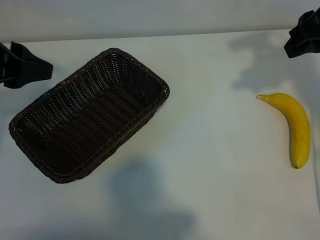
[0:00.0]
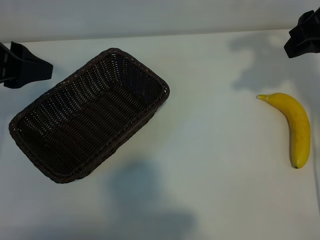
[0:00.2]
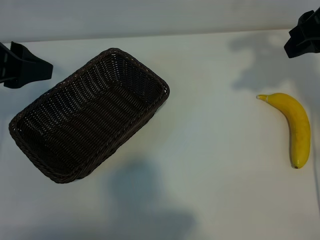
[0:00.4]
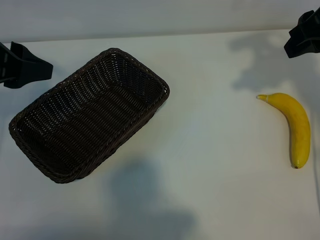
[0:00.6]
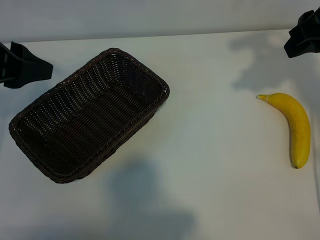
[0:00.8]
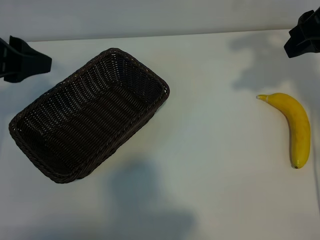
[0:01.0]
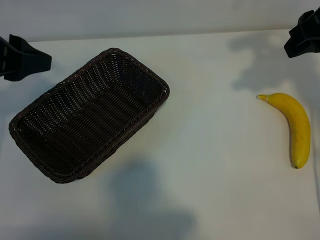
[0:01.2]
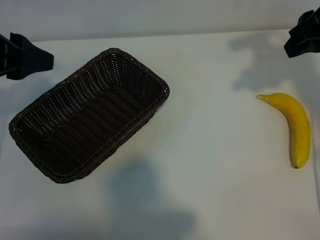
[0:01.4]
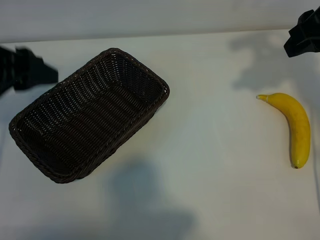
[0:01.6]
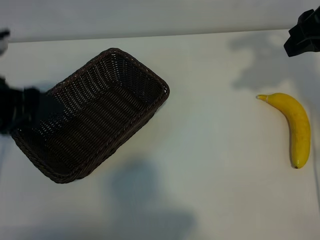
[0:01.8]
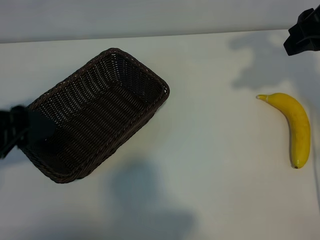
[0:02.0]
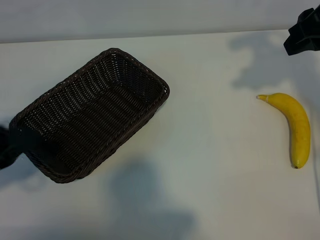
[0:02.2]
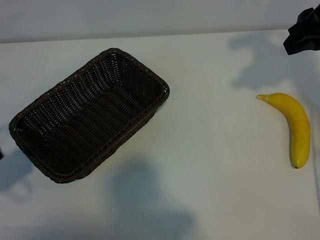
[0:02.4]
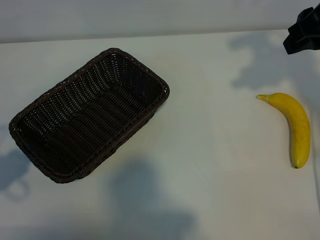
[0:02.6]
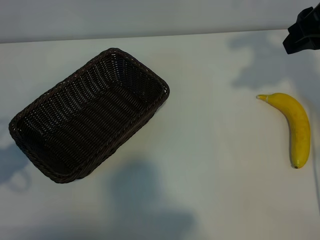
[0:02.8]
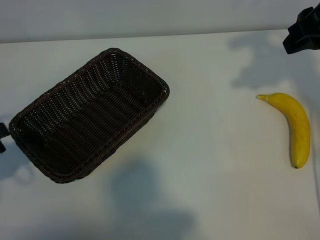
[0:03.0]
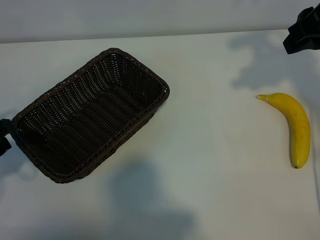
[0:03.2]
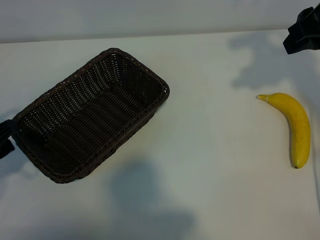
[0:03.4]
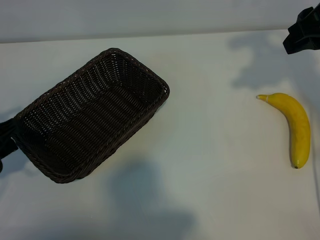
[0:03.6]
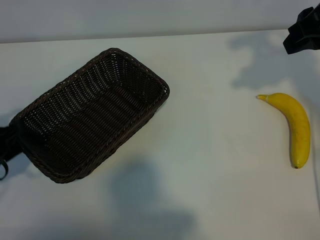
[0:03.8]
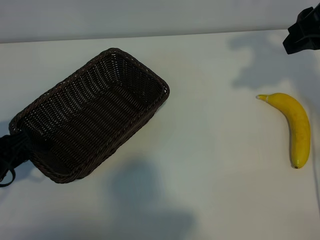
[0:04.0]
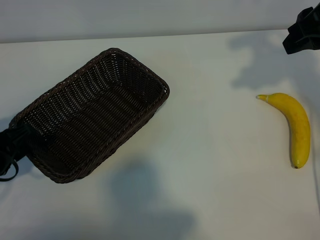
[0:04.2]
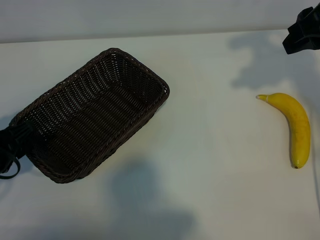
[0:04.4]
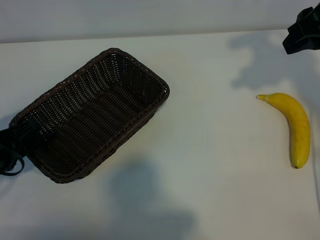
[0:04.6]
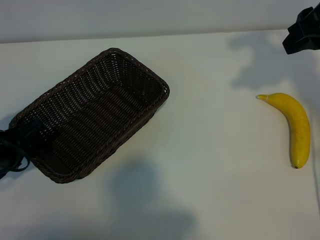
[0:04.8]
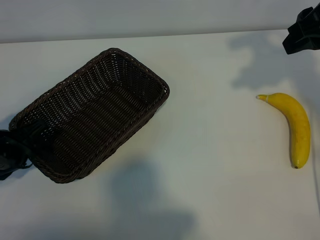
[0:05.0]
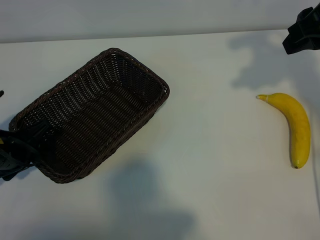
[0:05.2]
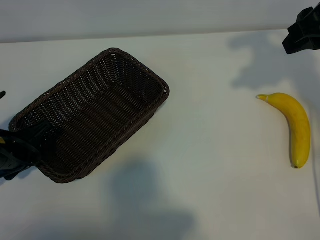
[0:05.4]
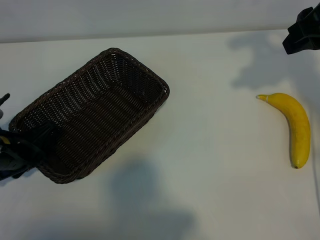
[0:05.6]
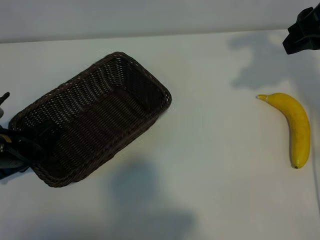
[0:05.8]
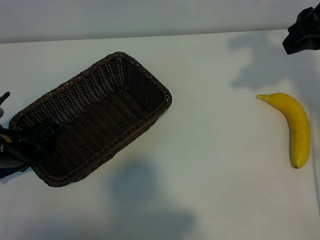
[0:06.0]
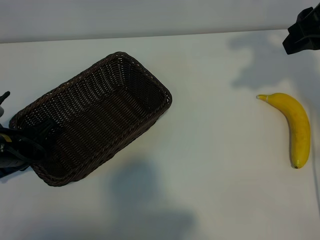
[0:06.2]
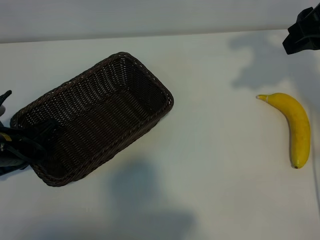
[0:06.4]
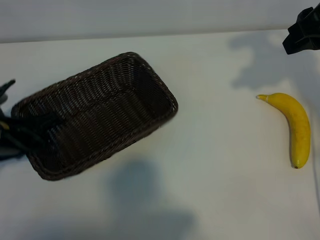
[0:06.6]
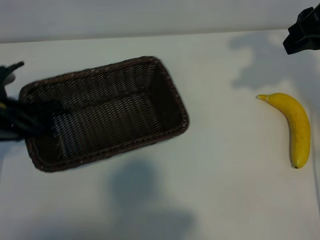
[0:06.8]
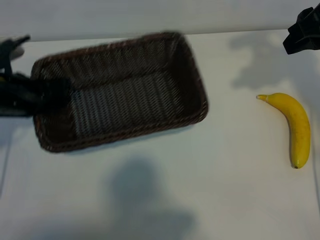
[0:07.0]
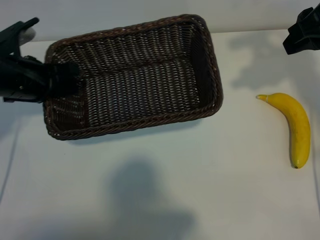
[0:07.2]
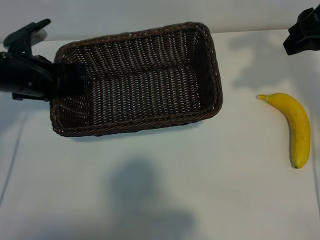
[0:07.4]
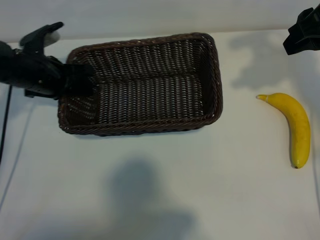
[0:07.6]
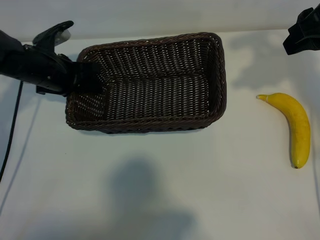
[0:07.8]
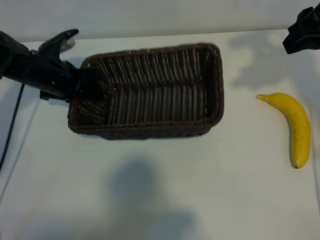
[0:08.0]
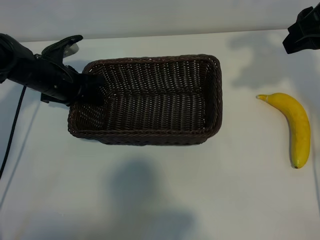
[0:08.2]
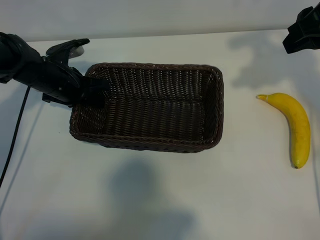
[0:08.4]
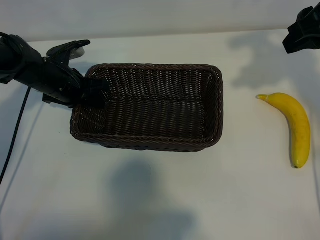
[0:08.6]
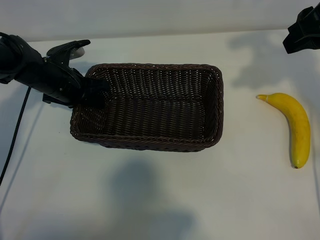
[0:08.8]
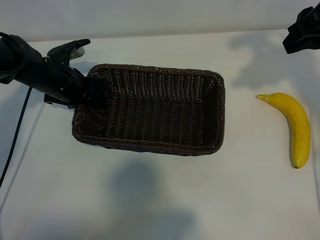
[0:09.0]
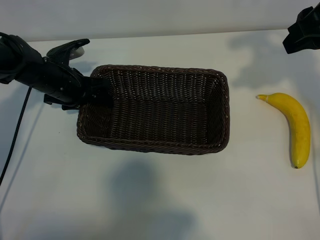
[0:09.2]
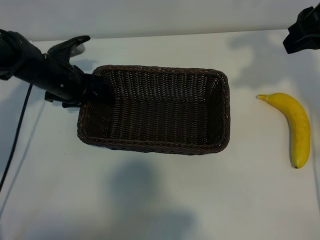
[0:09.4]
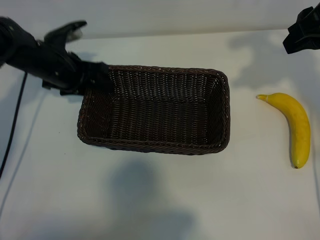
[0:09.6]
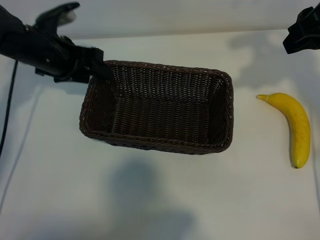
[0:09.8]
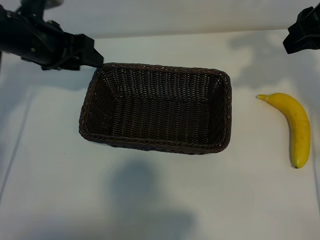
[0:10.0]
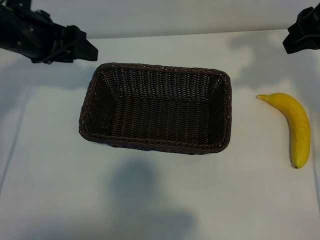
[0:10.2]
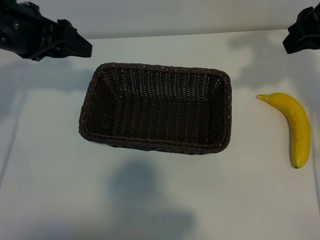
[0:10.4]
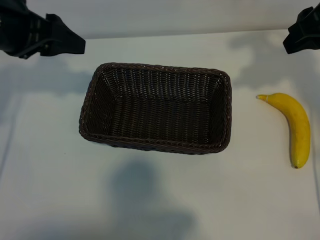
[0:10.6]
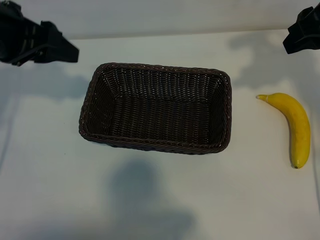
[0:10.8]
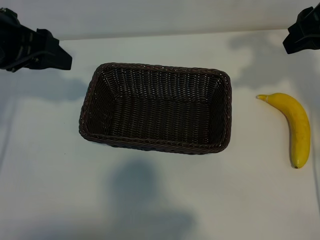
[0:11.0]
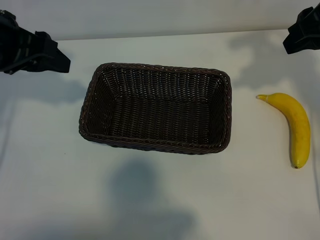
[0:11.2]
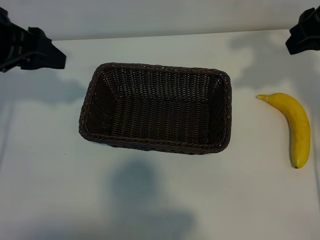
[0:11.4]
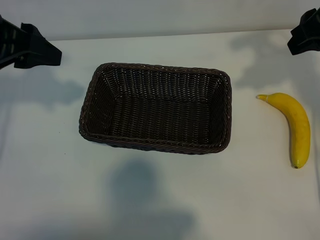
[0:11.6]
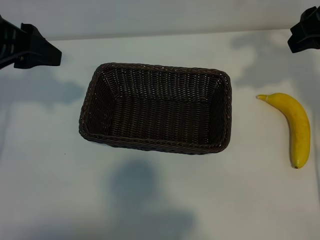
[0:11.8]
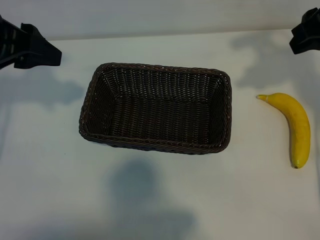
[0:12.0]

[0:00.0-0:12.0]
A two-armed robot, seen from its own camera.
Task of the whole recording: pick up the banana and put it into the basket.
Step, 0:00.8 to 0:05.6: Grasp the basket with the left gripper.
Step, 0:06.0 to 0:09.8: Place the basket in the center of the table with the left gripper.

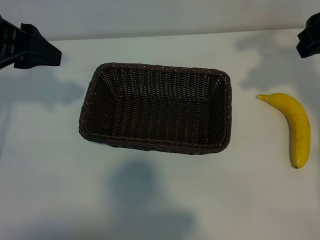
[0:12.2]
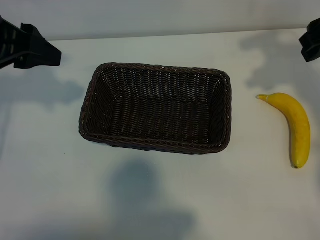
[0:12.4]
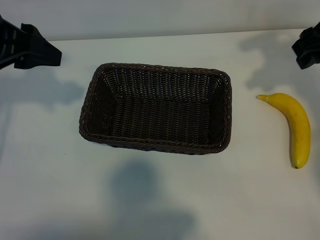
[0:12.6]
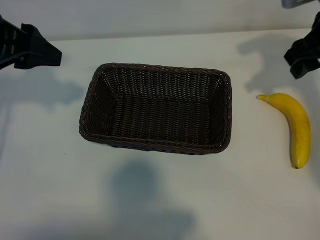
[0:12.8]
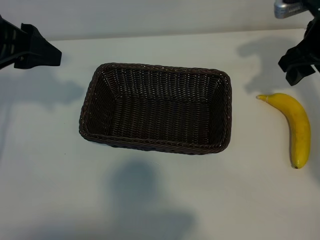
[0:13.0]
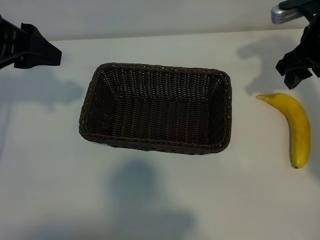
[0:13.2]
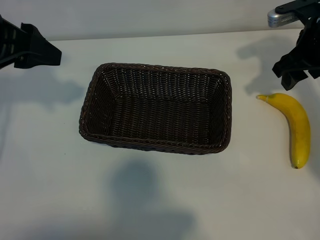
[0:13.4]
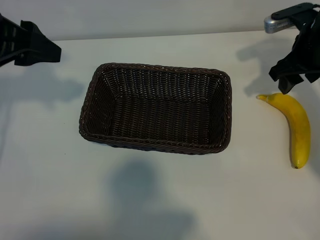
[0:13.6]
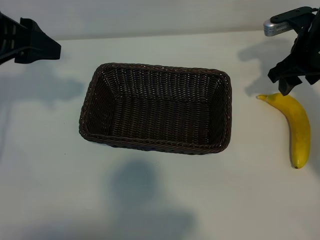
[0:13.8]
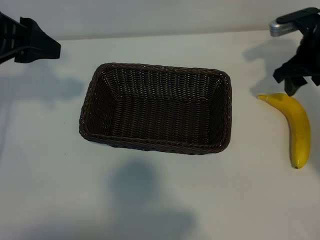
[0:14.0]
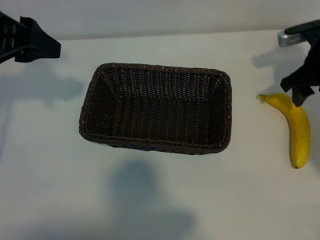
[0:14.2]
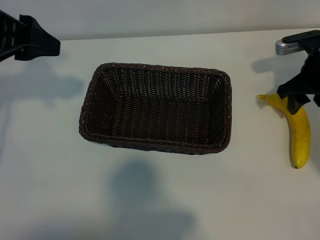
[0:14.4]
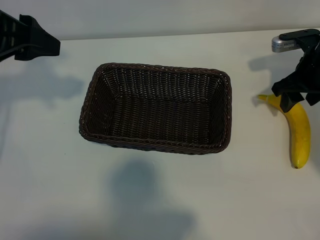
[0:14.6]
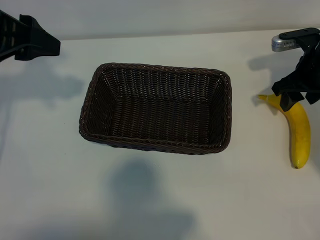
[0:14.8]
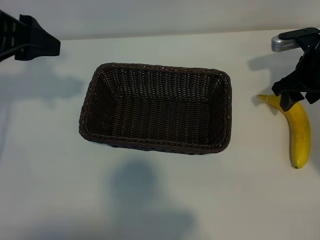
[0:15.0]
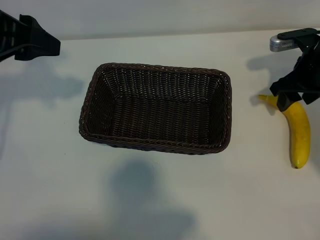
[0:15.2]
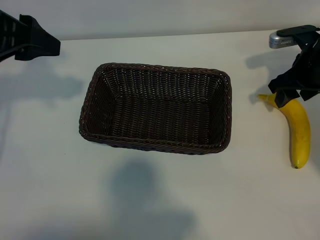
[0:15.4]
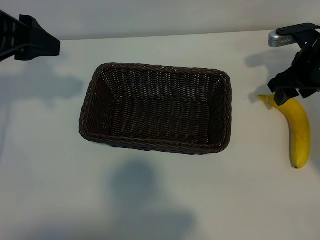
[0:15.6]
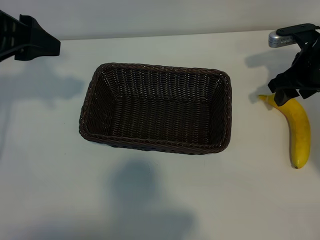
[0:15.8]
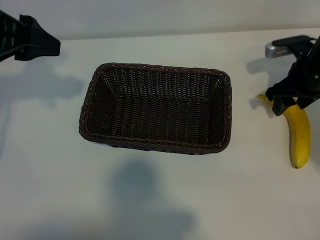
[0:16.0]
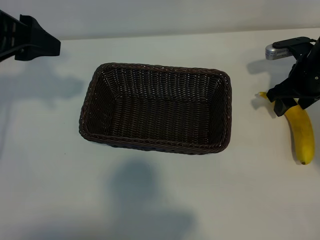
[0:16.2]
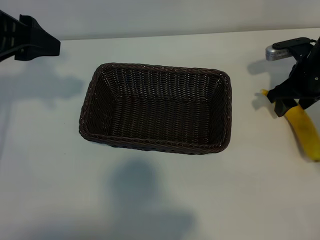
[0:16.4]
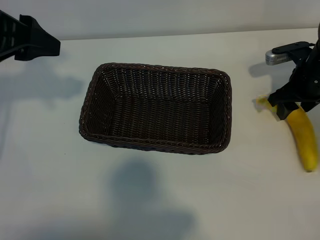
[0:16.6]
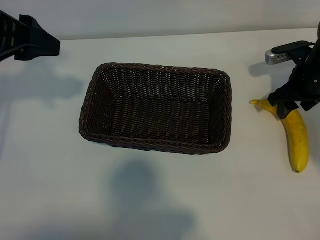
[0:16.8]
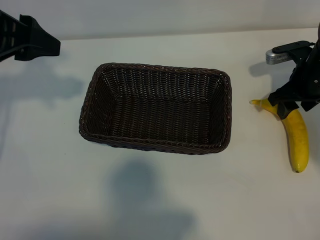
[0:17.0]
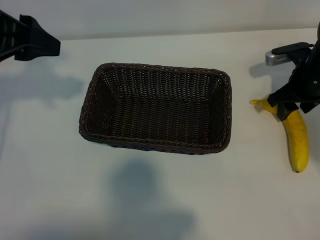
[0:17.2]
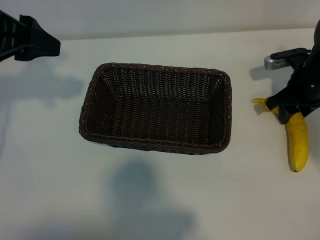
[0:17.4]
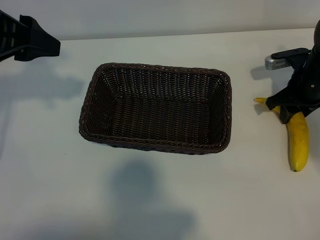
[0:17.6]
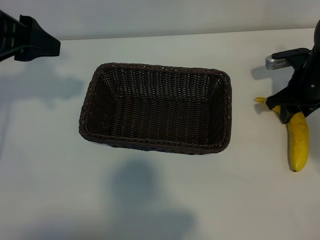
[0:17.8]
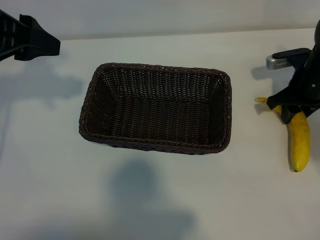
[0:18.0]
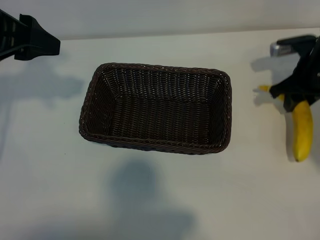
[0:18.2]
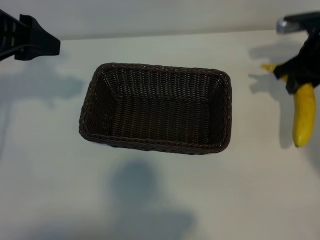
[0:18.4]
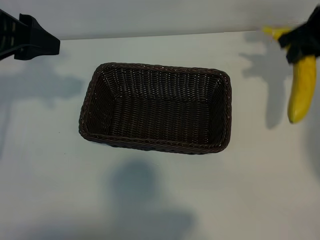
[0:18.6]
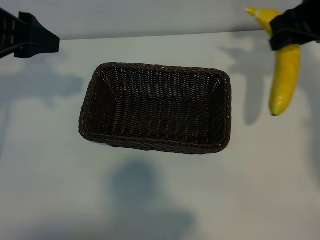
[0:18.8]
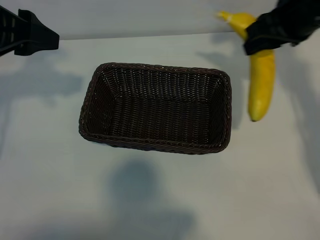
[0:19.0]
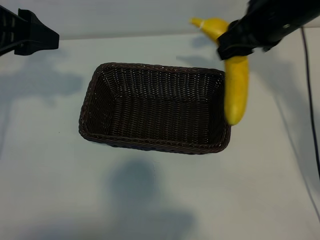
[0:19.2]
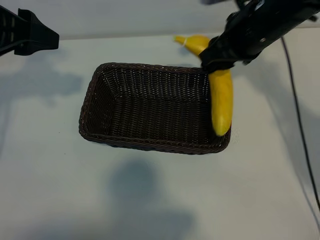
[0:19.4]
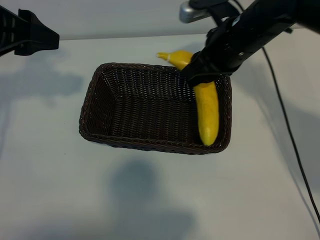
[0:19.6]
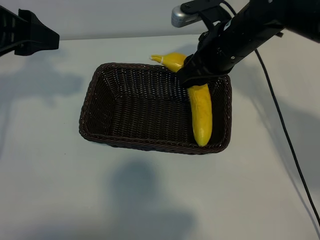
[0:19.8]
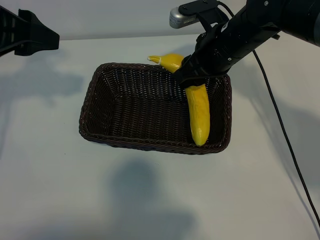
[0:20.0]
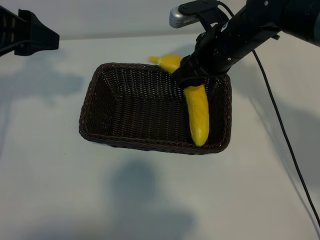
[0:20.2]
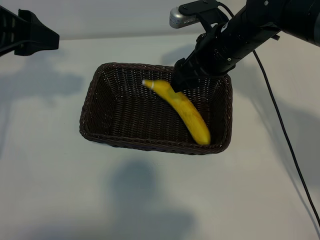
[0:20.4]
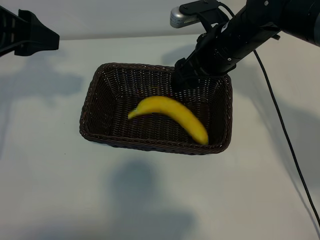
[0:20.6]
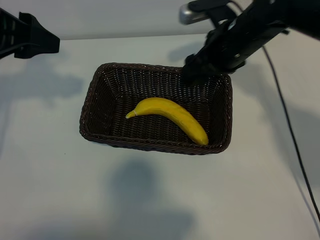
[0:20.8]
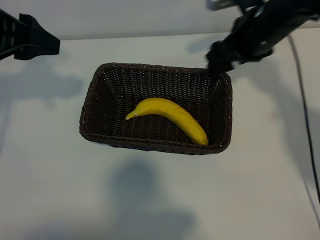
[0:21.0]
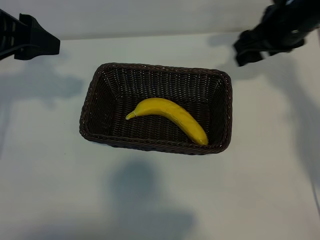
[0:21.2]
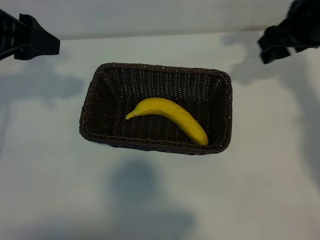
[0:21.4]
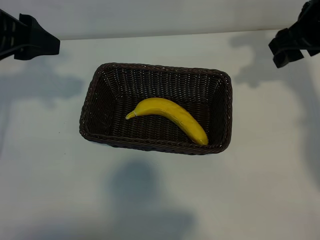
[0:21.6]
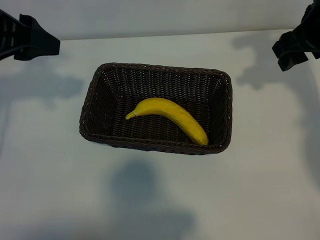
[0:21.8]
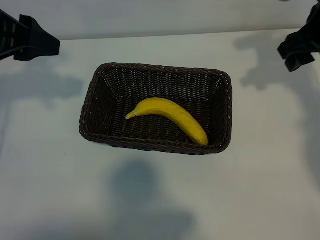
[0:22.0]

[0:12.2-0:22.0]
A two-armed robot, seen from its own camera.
Task of the whole recording: pick up the banana and put it into the basket.
Step, 0:12.2 to 0:17.6: Grasp the banana with right gripper.
Step, 0:17.8 to 0:20.8: Place the banana in the basket with right gripper.
